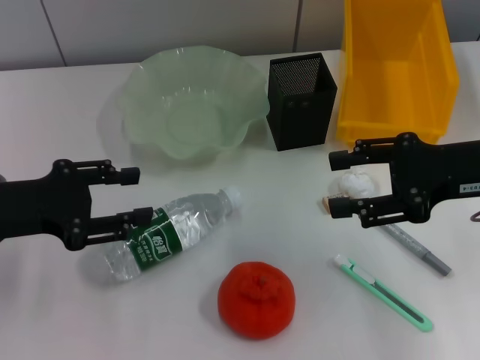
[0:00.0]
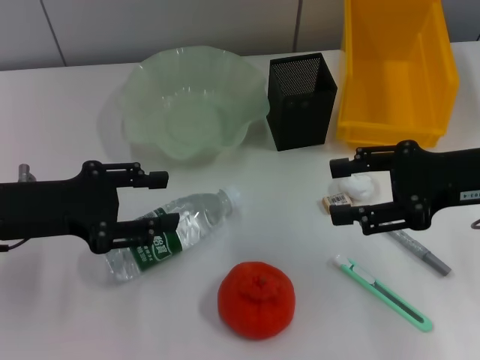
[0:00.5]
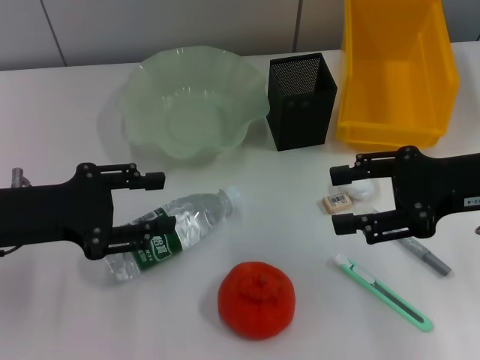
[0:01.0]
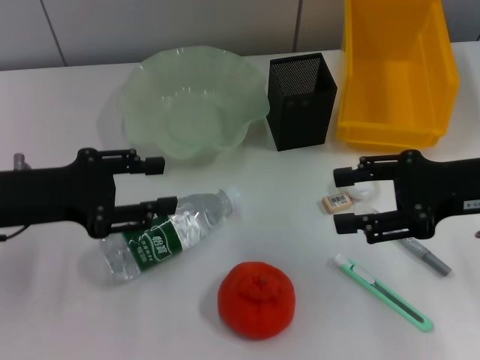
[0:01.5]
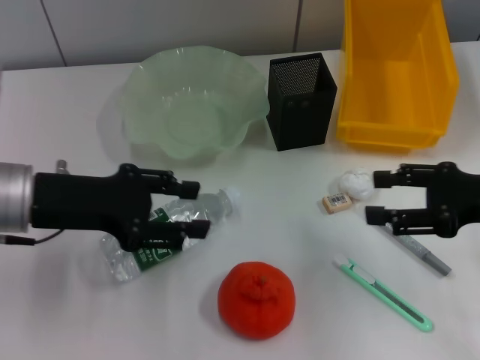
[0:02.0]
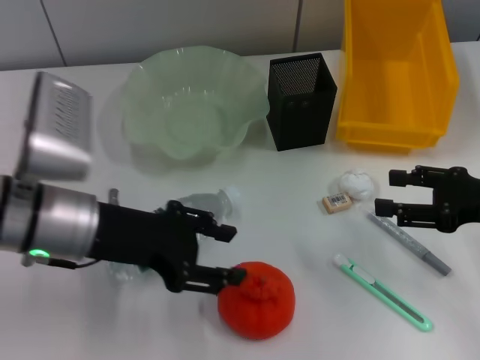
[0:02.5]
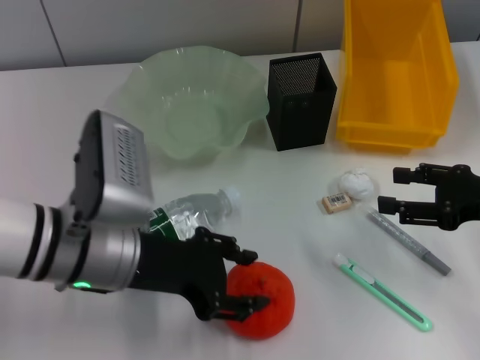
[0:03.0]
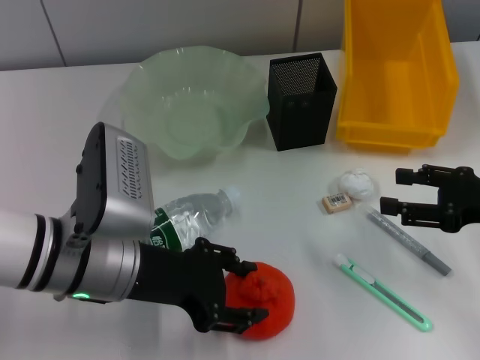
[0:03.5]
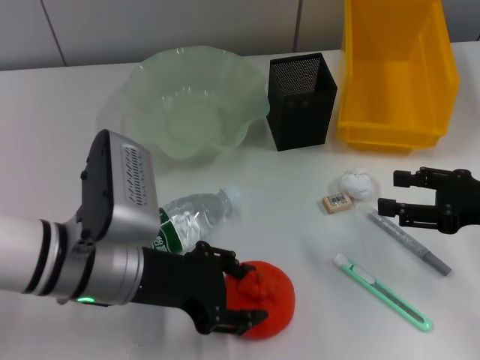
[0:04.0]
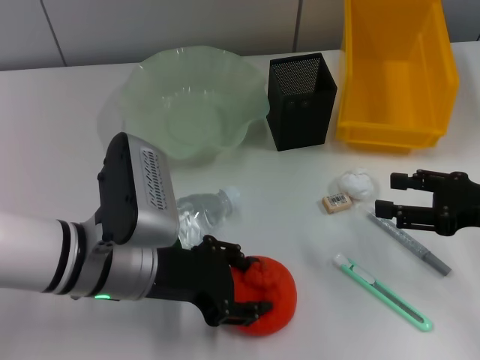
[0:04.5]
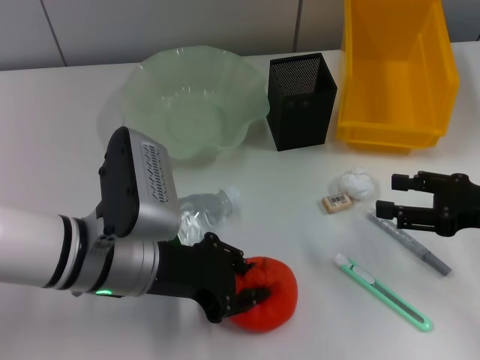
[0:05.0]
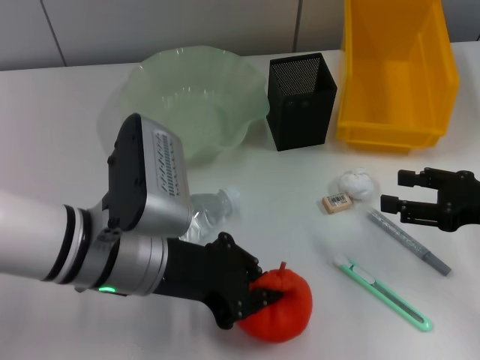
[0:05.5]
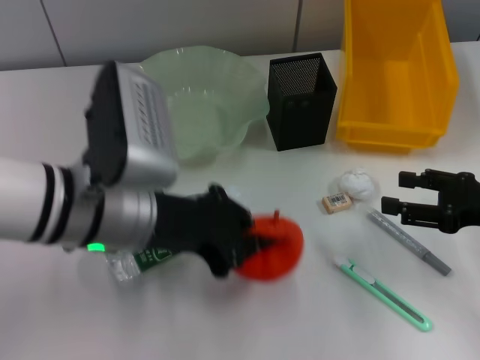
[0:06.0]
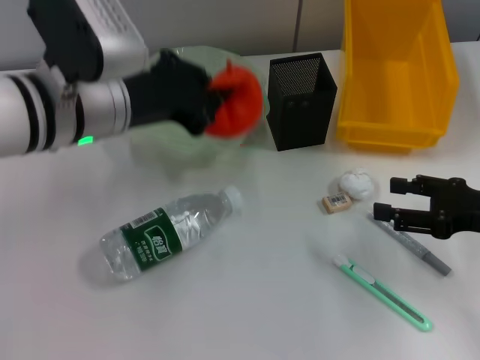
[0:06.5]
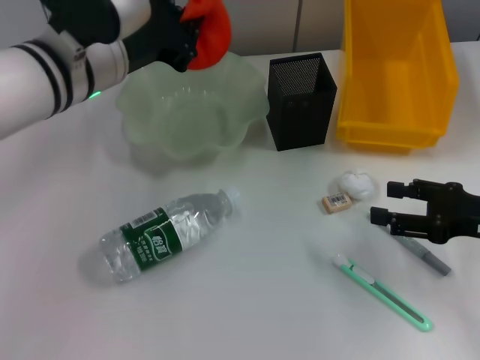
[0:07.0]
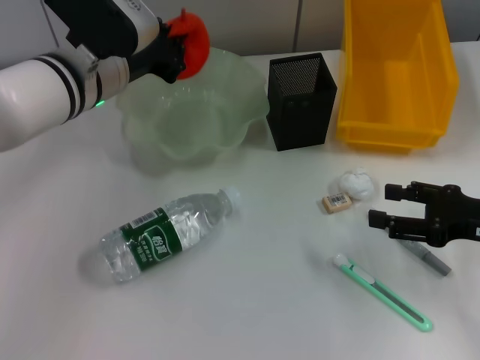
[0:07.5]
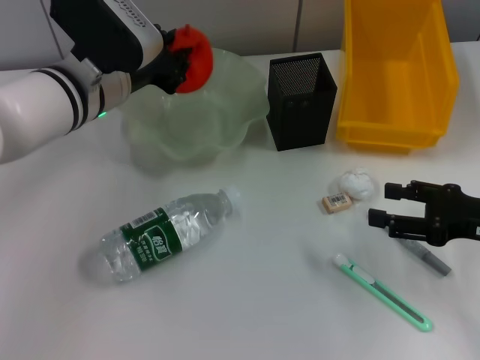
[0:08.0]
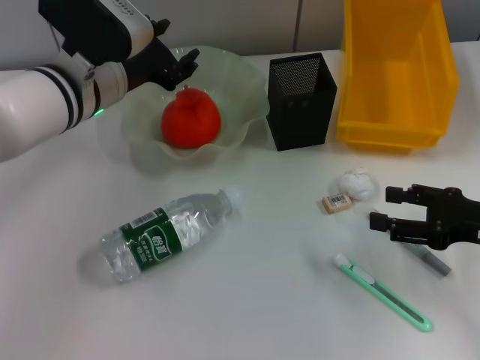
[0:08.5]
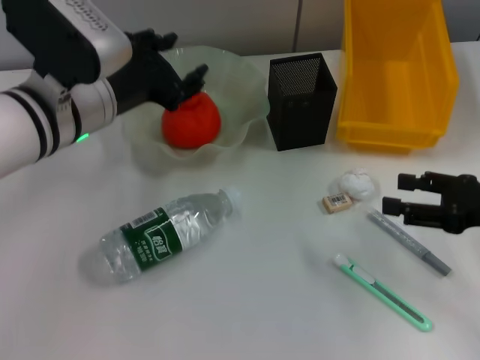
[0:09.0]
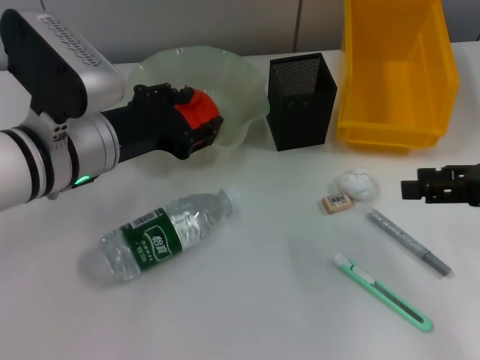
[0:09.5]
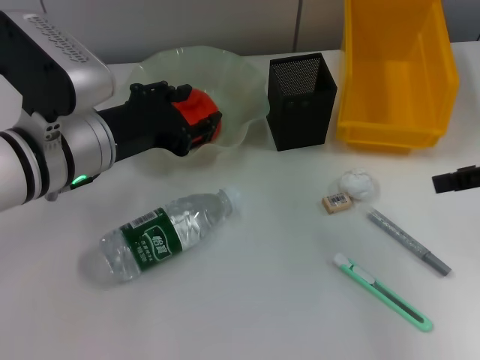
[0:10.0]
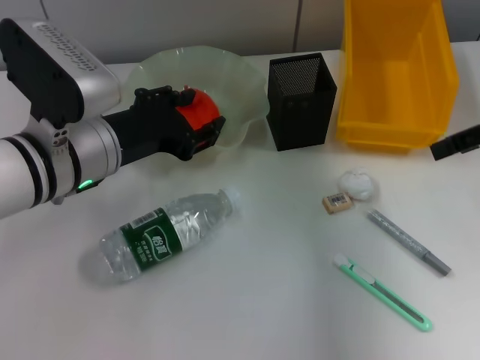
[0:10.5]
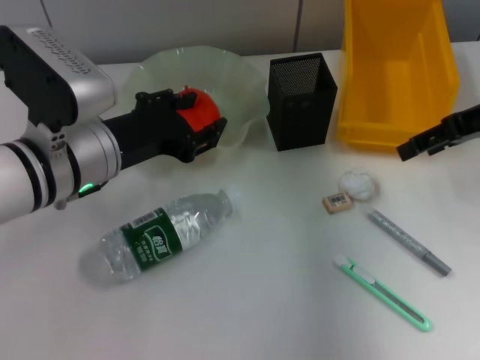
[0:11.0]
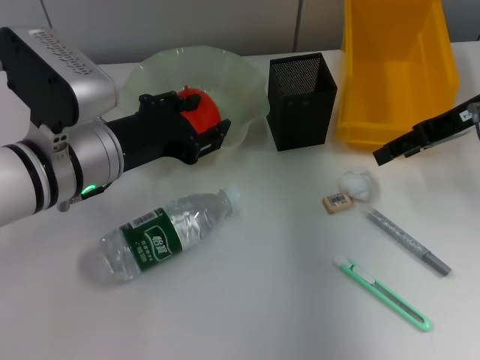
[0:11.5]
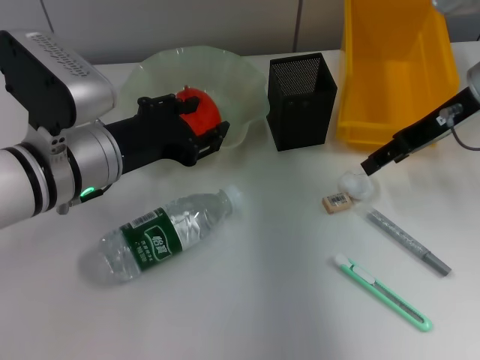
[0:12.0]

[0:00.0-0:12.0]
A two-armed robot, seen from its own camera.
Step, 0:00.0 to 0:05.0: Grab the orange with the left hand.
Step, 0:05.5 to 0:08.5: Place the orange into the fruit bowl with the left hand.
0:00.0 to 0:02.0: The right gripper ends up some 5 cm from where it was.
0:02.0 to 0:04.0: The left gripper moves to the right, roughly 10 cm.
0:04.0 to 0:06.0: The left gripper heads upward, covering about 5 cm, and closes up.
0:06.0 to 0:08.0: The left gripper is displaced forward by some 10 cm.
0:08.0 to 0:10.0: The left gripper heads backward, covering roughly 5 cm, and opens its fingers. The right gripper heads upward, covering about 15 cm.
0:10.0 to 0:12.0: The right gripper travels forward and to the left by some 15 cm.

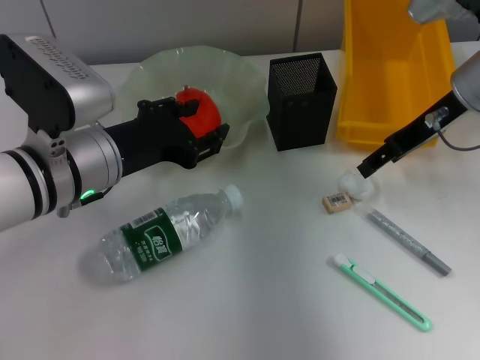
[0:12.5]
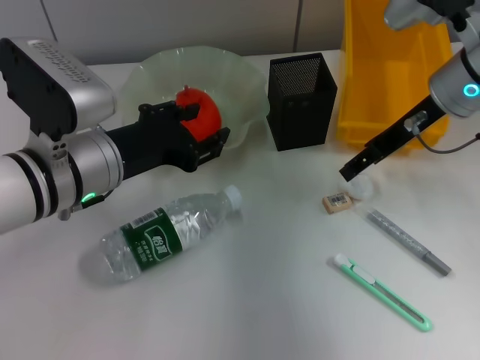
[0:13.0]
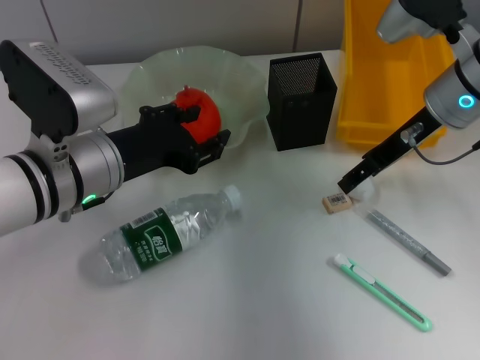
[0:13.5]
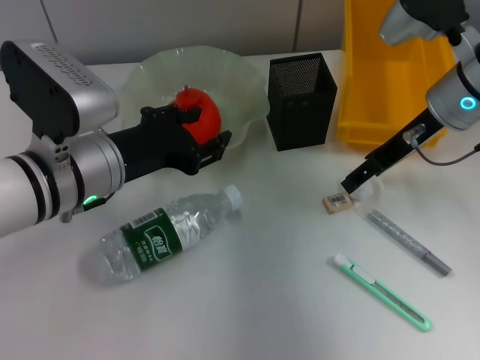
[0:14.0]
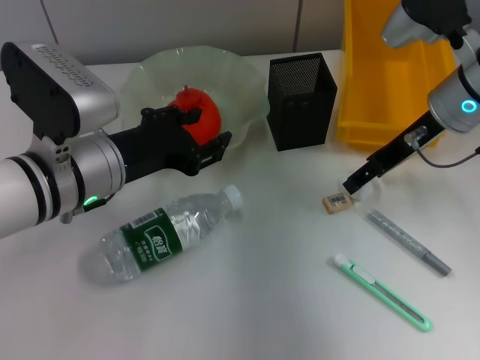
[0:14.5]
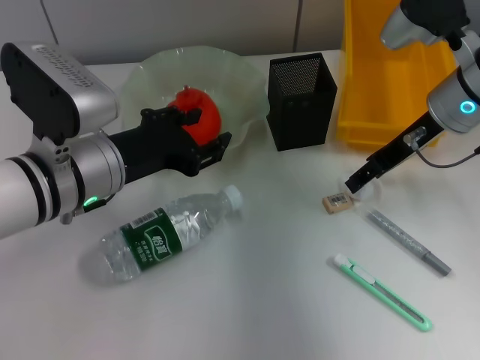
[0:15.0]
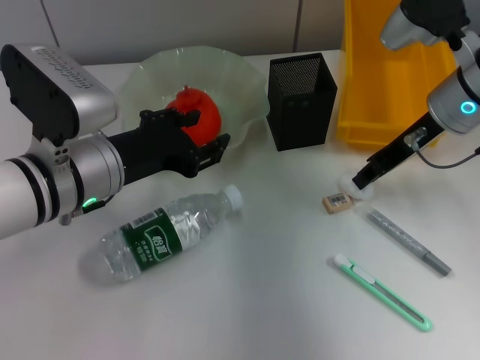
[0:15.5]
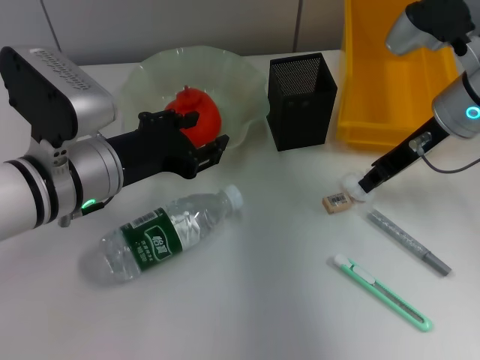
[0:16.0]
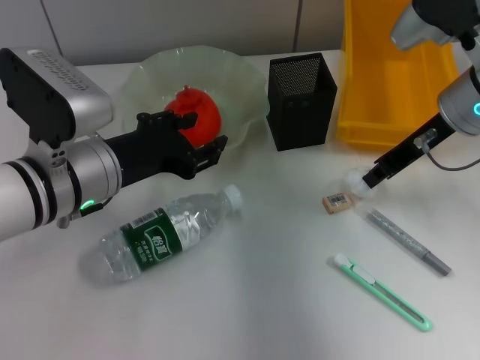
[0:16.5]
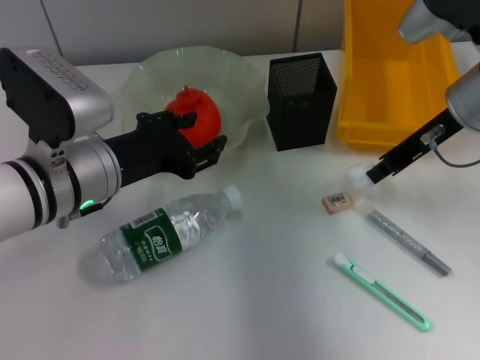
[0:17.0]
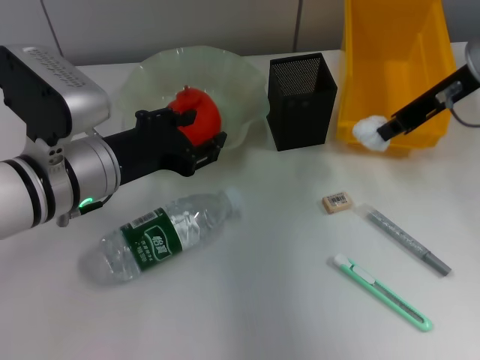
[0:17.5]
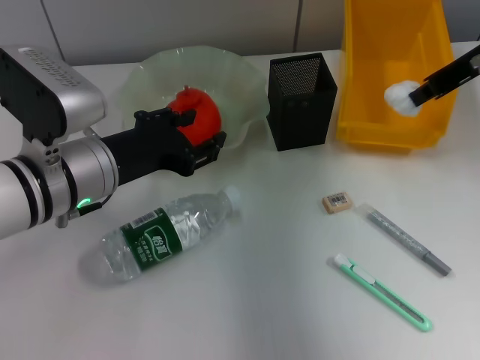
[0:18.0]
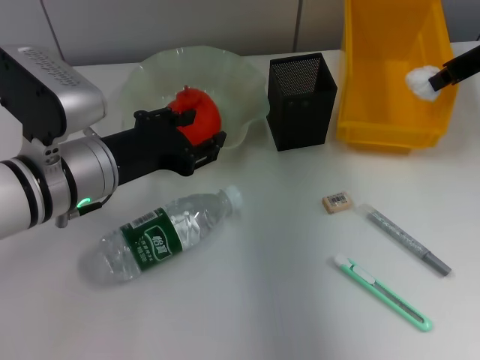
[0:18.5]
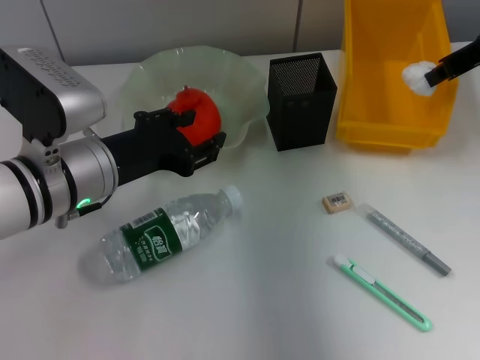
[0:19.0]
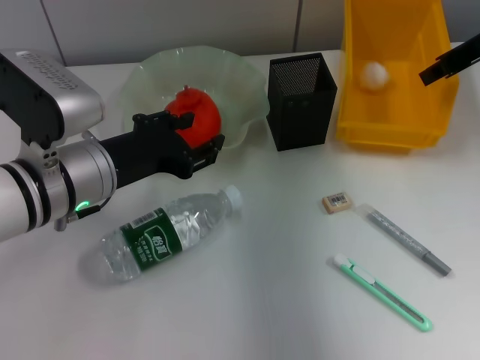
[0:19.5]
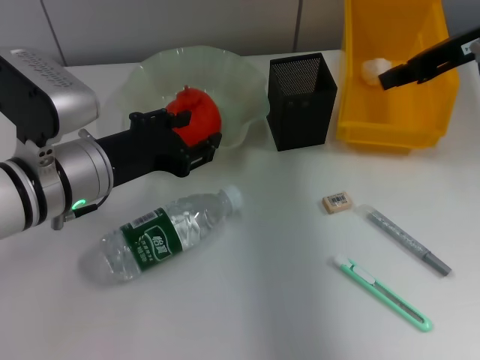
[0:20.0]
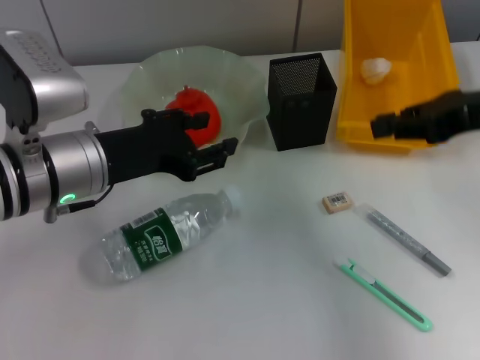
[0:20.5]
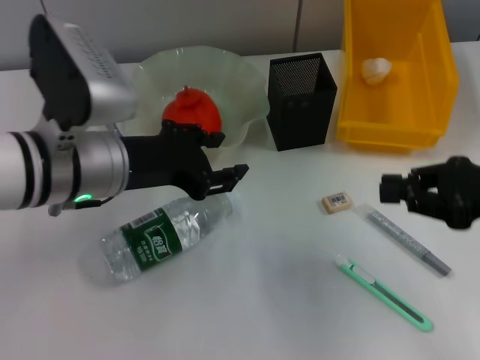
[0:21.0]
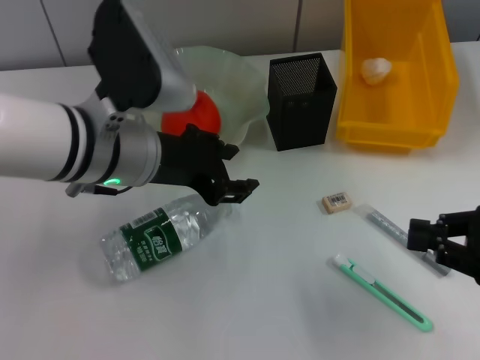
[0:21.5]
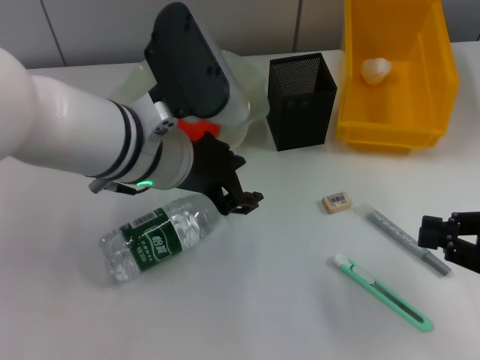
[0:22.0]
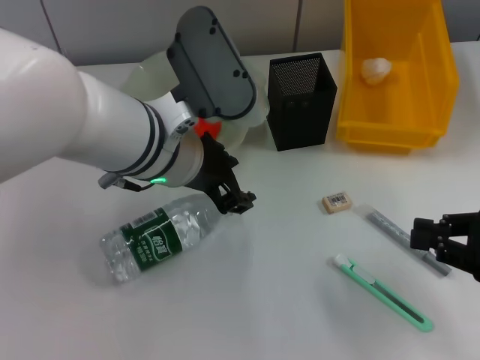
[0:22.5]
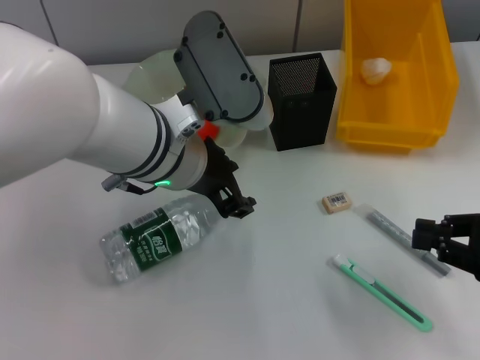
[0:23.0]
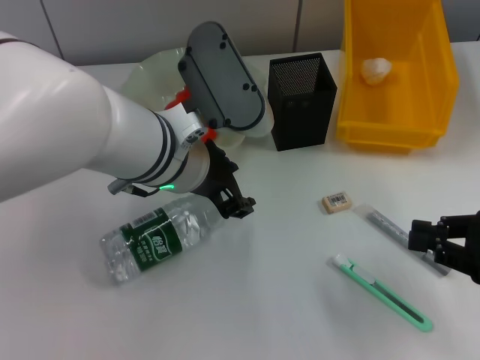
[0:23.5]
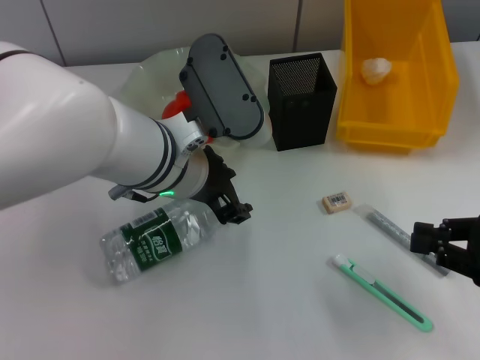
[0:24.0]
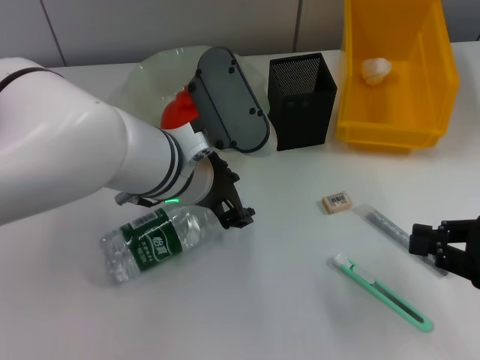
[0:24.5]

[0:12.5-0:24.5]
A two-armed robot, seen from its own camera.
Step, 0:12.5 to 0:16.5: Grab the paper ball with the right hand.
Step, 0:17.0 to 0:19.5: Place the paper ball into the trash can with the right hand.
0:12.5 to 0:14.5: The grippers stay close to where they were, moving slightly.
0:14.5 to 0:16.5: The right gripper closes up.
0:16.5 to 0:18.5: The right gripper moves upward and to the right, roughly 10 cm.
0:18.5 to 0:20.5: The right gripper heads backward, covering about 10 cm.
0:20.5 to 0:22.5: The right gripper travels downward, backward and to the right by roughly 15 cm; the left gripper shifts approximately 10 cm to the right.
0:22.5 to 0:24.5: The grippers stay close to where they were, moving slightly.

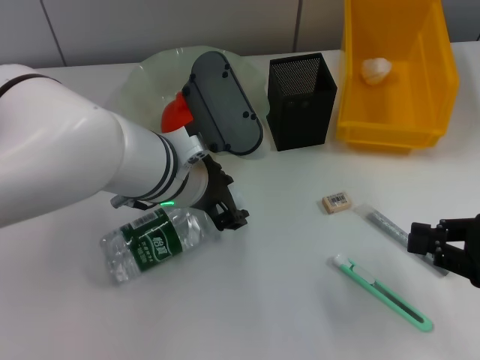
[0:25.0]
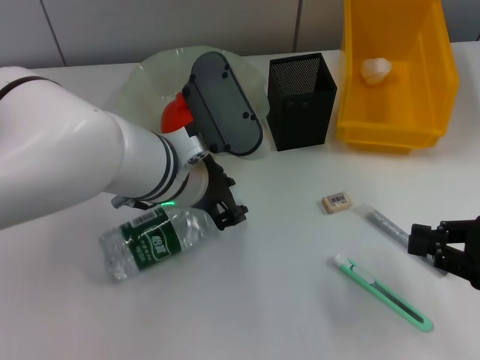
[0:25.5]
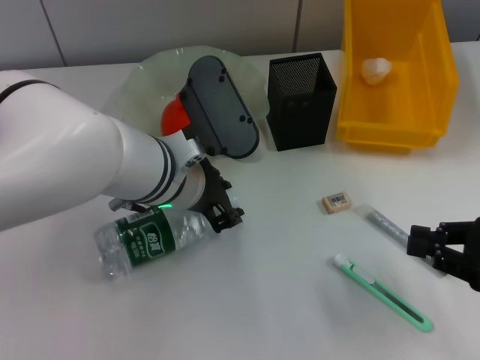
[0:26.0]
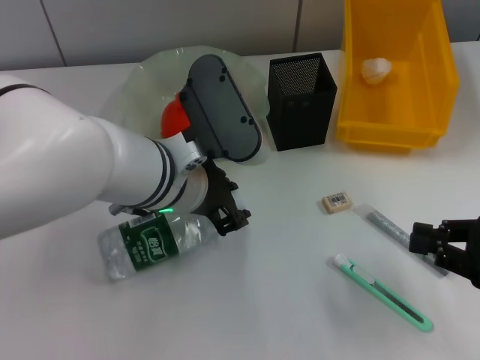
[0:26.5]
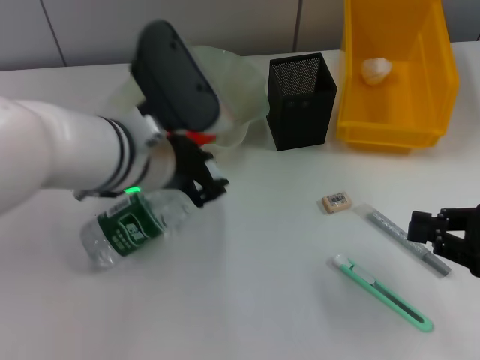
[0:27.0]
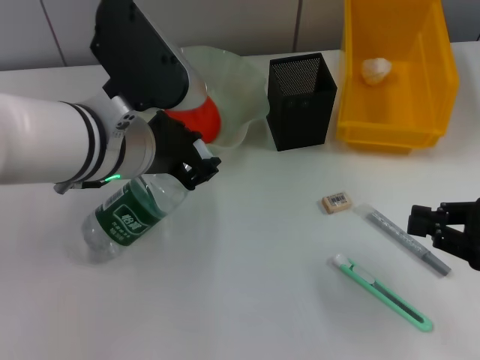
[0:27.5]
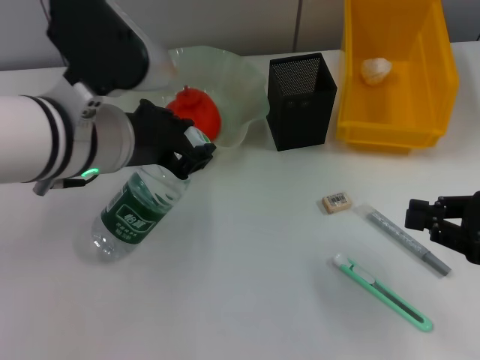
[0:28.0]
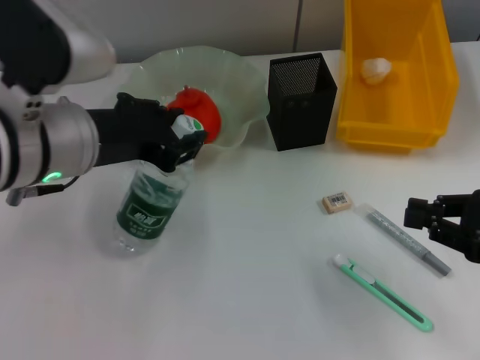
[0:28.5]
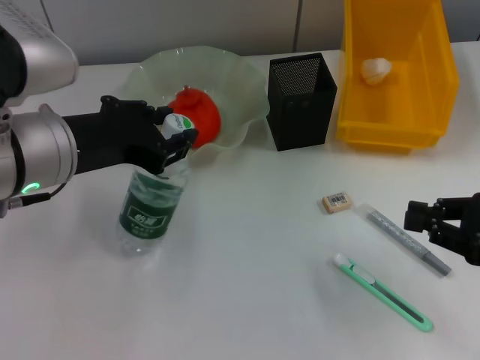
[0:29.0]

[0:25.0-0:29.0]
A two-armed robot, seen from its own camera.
0:25.0 to 0:27.0: The grippers make only small movements.
0:27.0 to 0:29.0: The left gripper heads to the left, covering approximately 10 cm.
